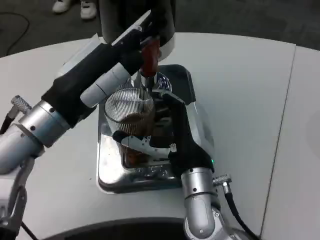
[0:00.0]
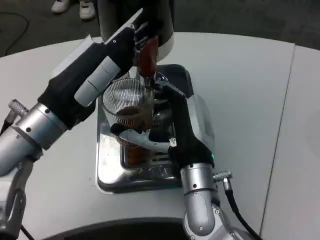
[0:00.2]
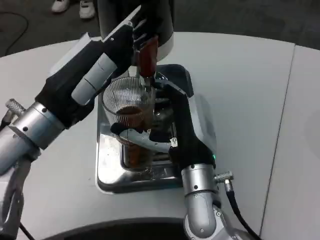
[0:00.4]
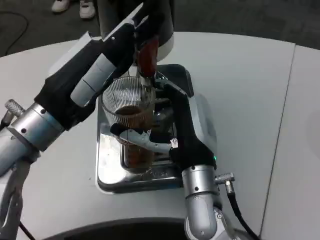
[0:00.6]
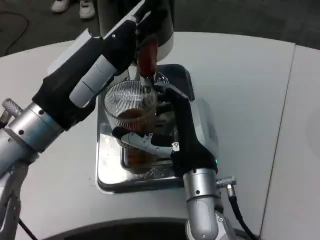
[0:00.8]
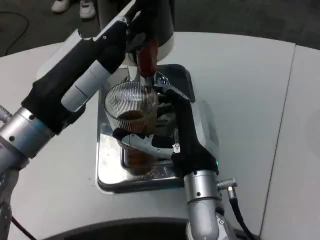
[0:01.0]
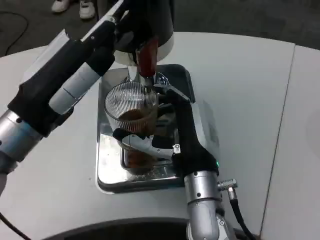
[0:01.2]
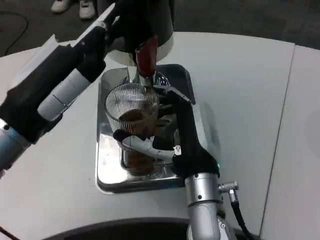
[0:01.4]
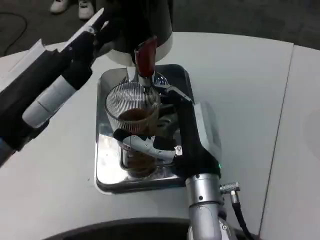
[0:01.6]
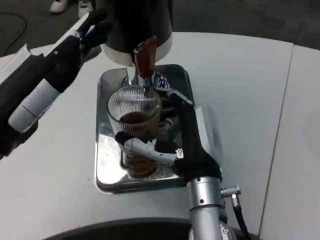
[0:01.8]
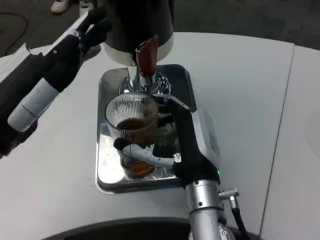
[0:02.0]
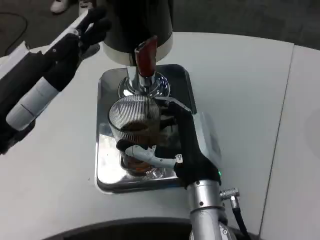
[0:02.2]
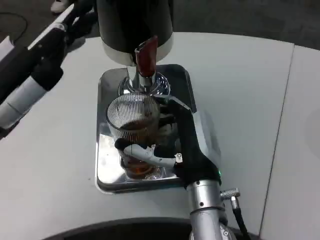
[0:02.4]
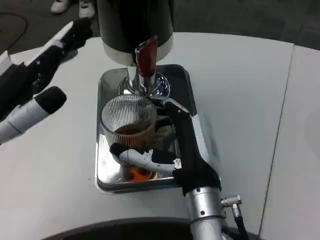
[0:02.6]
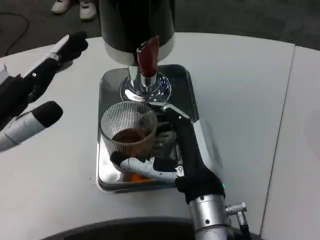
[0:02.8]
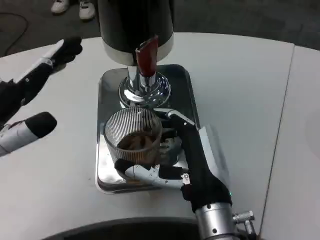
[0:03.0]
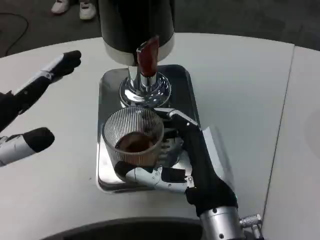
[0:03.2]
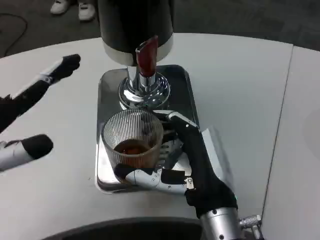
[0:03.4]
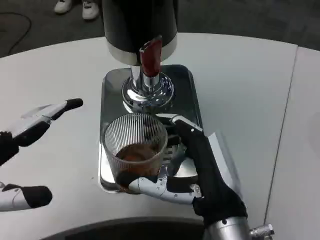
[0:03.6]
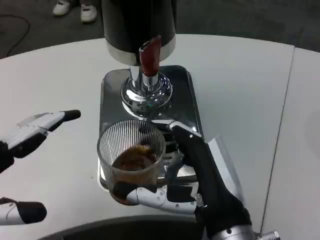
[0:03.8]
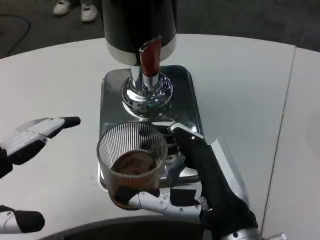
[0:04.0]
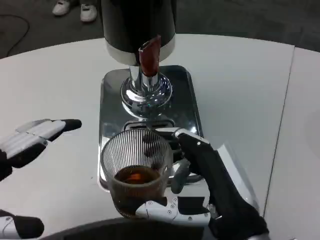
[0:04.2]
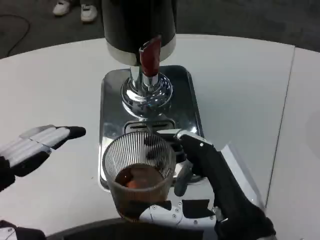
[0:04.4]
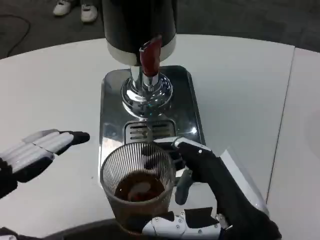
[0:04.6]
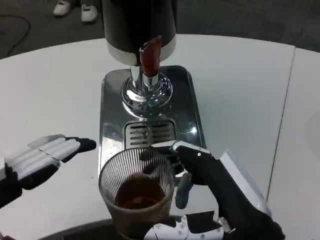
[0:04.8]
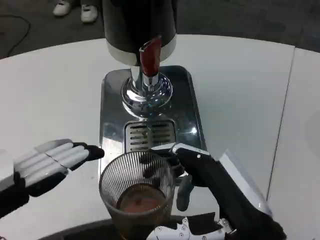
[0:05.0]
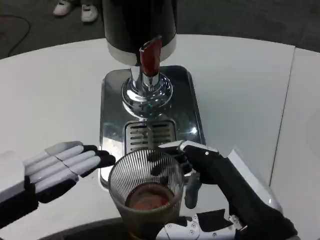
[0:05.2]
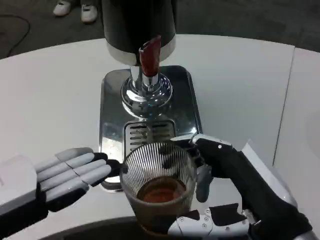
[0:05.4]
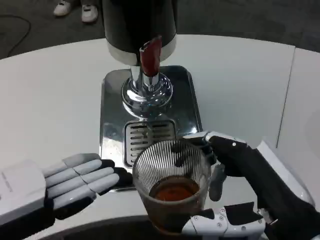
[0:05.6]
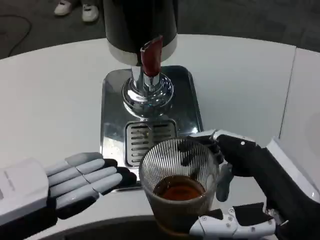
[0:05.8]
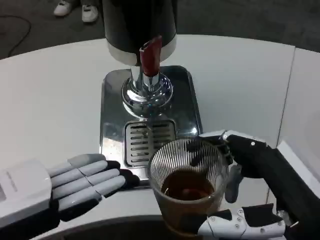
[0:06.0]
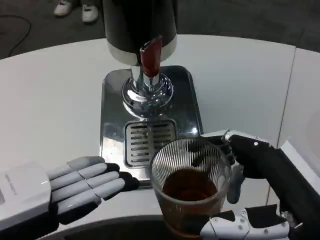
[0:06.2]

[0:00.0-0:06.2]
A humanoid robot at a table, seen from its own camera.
Task of the whole recording: Grasp the cup under the faucet to collect the drink, then remove the cup.
0:00.0 to 0:01.6: The left hand goes some 5 cm backward.
0:01.6 to 0:03.2: The left hand moves to the left, some 5 cm; the right hand travels backward by approximately 5 cm.
0:03.2 to 0:04.6: The left hand moves roughly 5 cm; the right hand travels backward and to the right by about 10 cm.
0:04.6 to 0:06.2: The right hand shifts roughly 5 cm to the right.

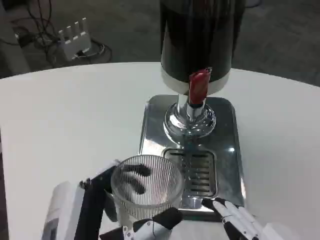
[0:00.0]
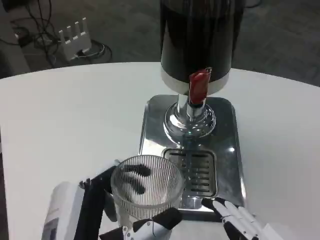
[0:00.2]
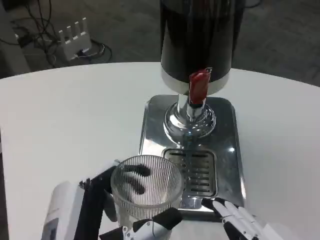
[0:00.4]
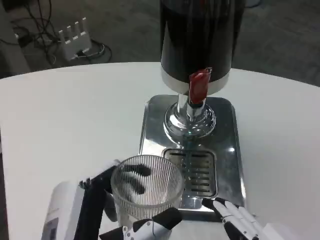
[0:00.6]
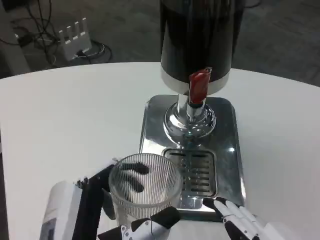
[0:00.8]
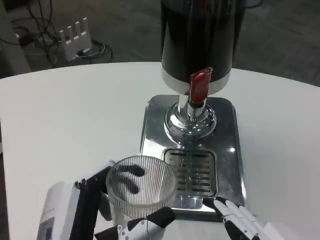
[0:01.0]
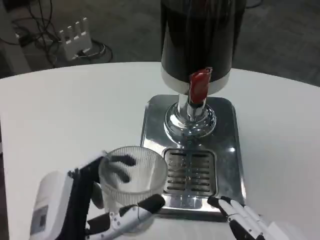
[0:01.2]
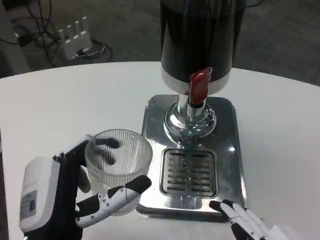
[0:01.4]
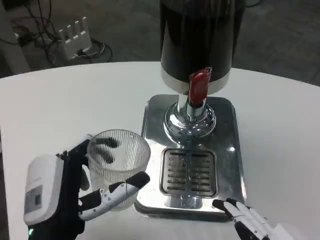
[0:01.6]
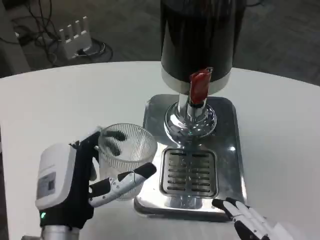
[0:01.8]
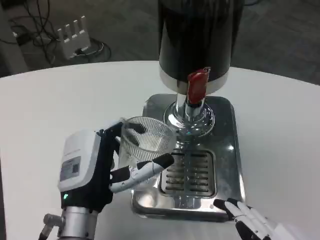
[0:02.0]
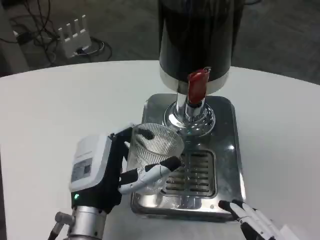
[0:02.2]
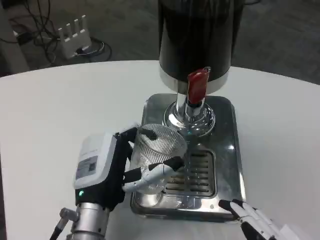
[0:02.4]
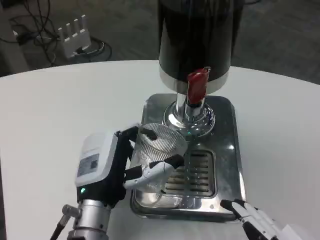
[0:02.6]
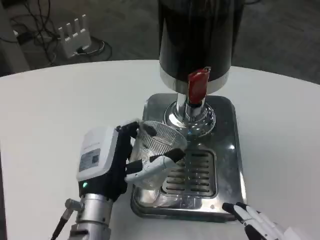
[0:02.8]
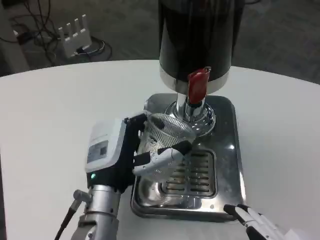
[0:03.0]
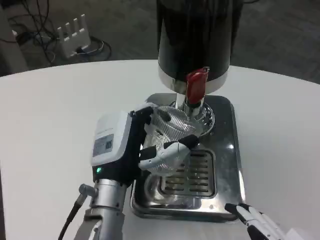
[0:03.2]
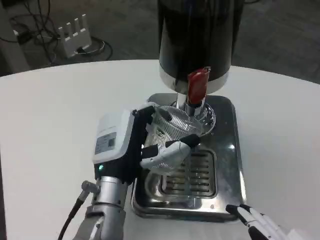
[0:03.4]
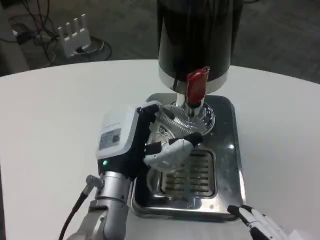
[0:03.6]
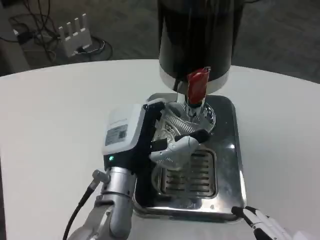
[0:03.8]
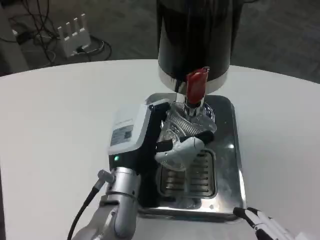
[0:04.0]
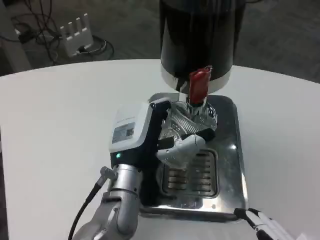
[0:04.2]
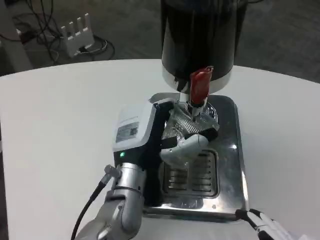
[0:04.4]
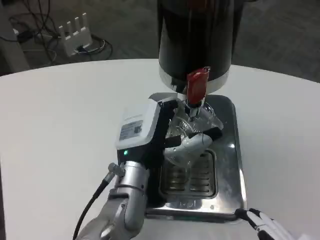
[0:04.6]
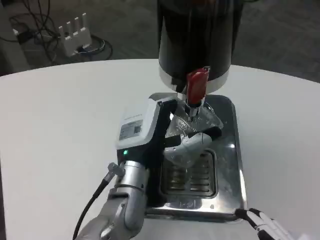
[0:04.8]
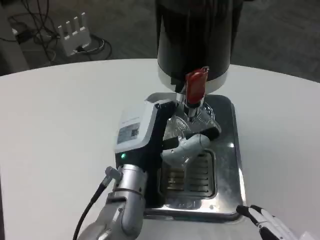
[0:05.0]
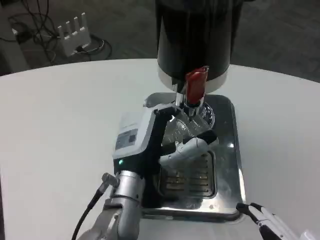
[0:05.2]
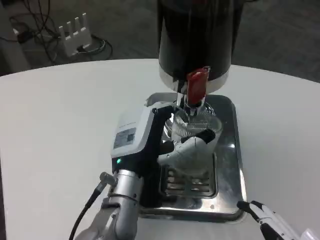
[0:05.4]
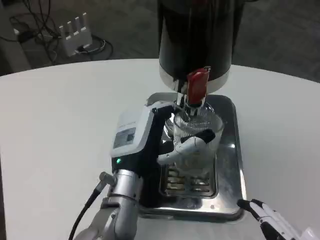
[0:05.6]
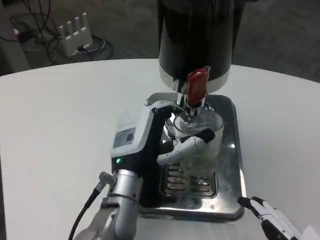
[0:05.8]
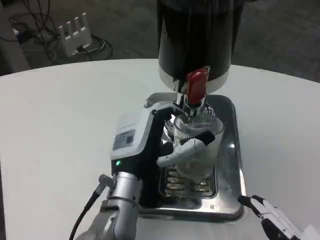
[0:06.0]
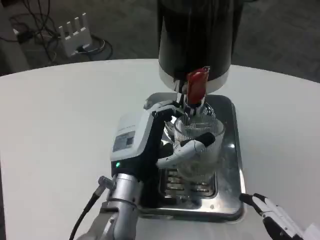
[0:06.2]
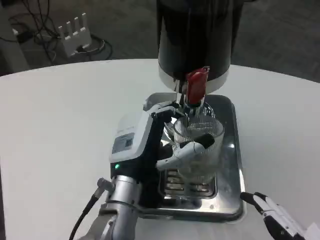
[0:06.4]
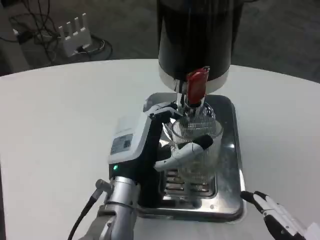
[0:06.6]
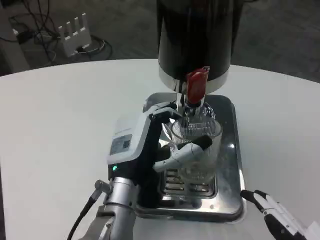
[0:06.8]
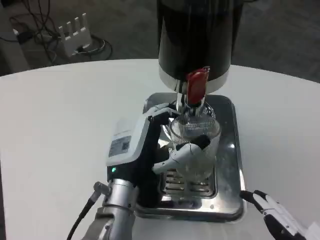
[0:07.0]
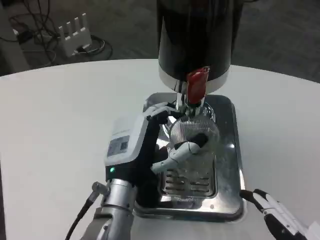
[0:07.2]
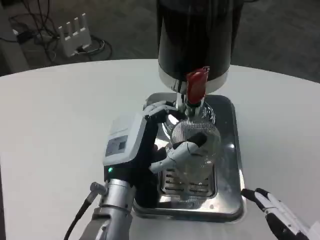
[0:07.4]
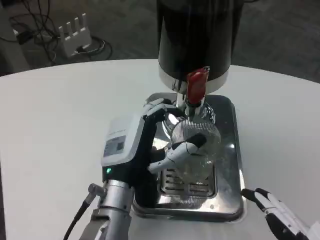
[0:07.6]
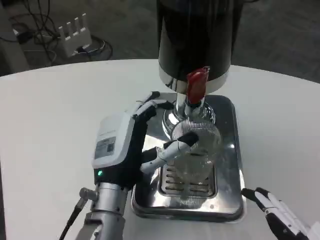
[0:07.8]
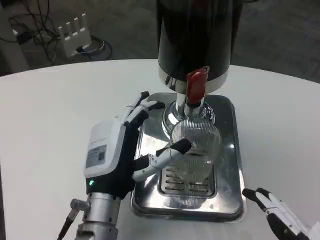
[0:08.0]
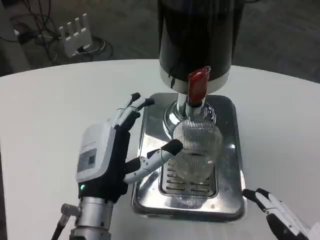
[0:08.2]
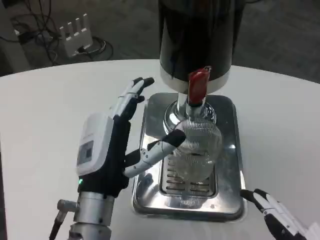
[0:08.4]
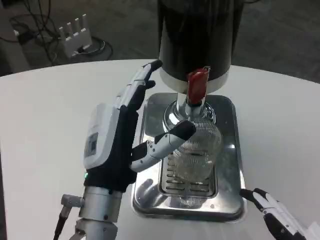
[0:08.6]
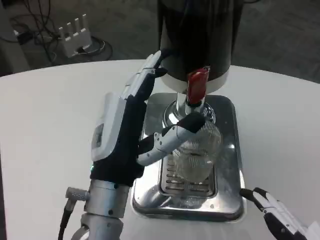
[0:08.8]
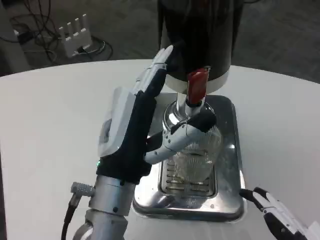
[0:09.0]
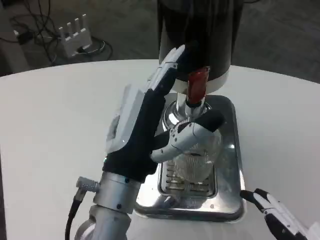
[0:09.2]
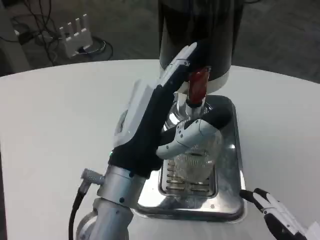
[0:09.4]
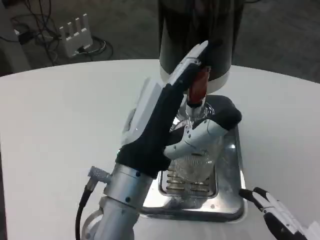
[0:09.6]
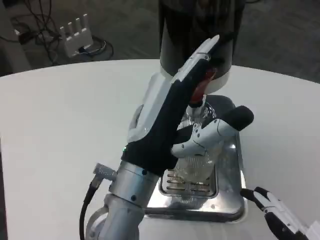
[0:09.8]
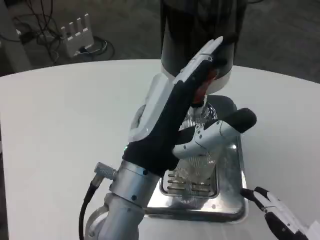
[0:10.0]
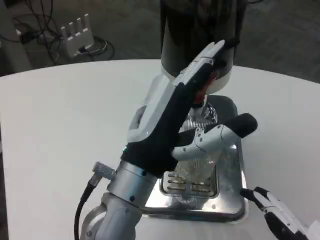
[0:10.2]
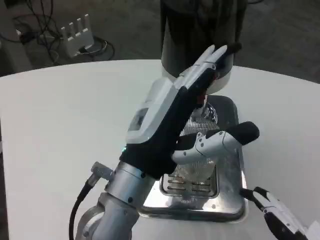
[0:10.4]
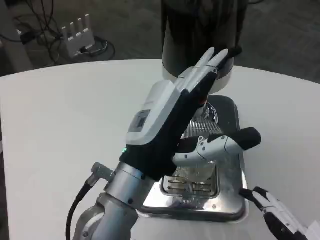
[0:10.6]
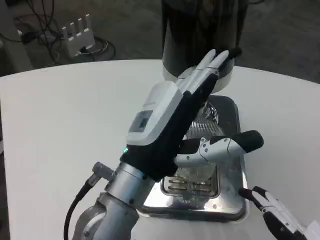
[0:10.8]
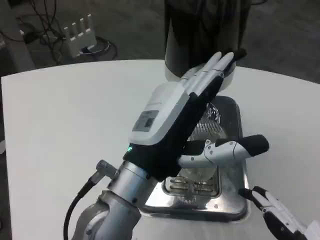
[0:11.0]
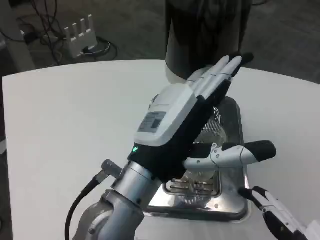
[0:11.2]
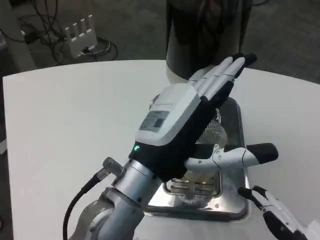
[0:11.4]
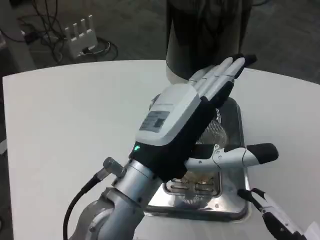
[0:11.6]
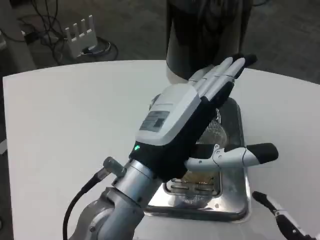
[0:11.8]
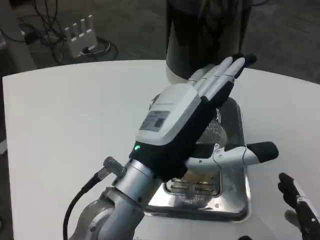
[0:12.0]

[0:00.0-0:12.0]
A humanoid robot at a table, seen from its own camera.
Task of the whole recording: Grasp the cup under the faucet to collect the drink, then remove the cup.
0:00.0 to 0:01.6: The left hand goes roughly 5 cm forward.
0:01.6 to 0:03.0: The left hand shifts about 10 cm forward.
0:03.0 to 0:07.6: There are only small adjustments of the hands.
0:07.6 to 0:09.0: The left hand moves upward and backward, some 10 cm.
0:10.4 to 0:12.0: The right hand moves downward, approximately 5 cm.

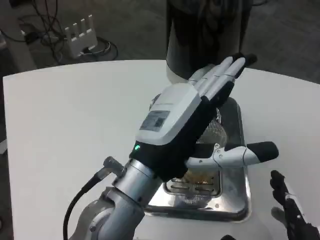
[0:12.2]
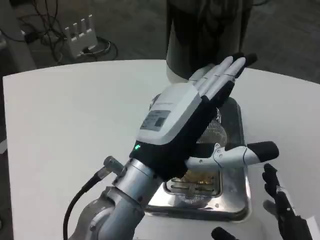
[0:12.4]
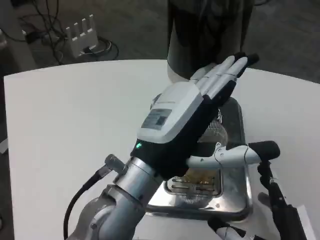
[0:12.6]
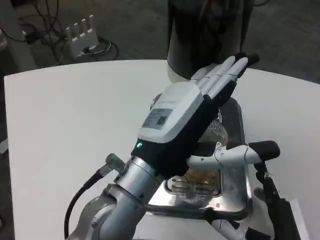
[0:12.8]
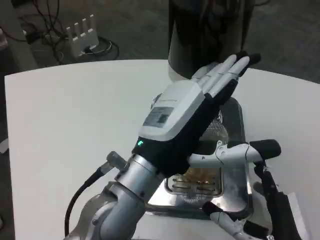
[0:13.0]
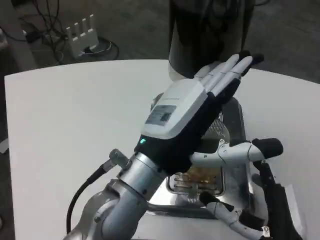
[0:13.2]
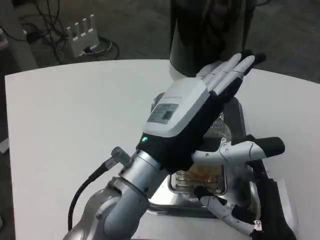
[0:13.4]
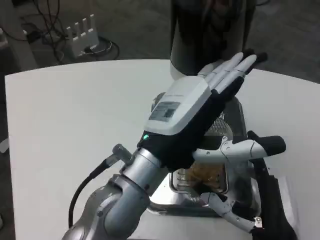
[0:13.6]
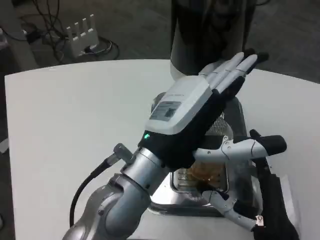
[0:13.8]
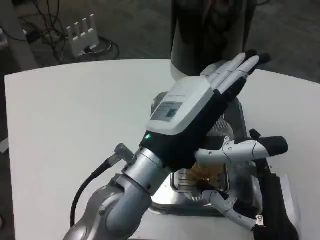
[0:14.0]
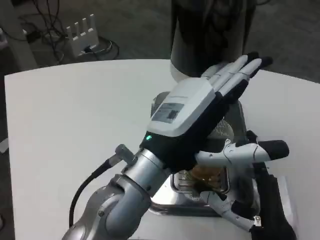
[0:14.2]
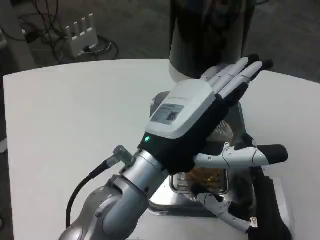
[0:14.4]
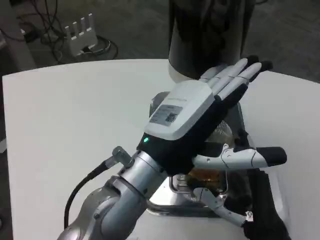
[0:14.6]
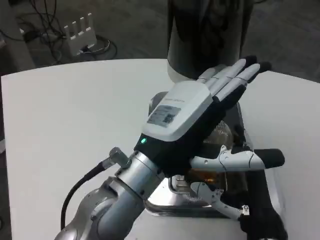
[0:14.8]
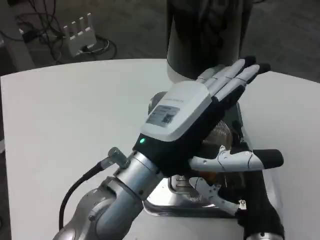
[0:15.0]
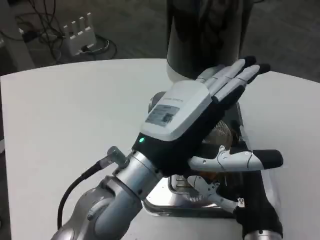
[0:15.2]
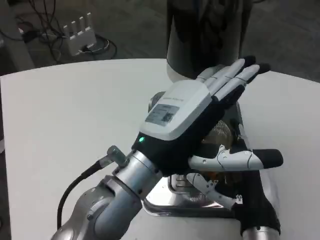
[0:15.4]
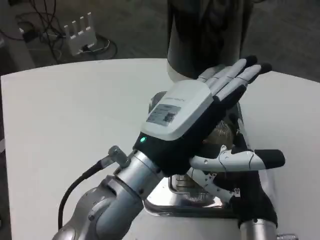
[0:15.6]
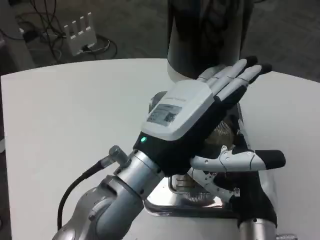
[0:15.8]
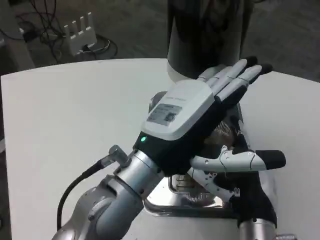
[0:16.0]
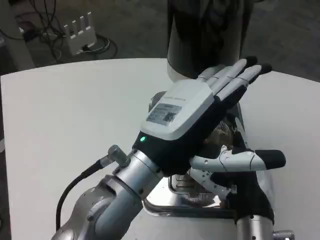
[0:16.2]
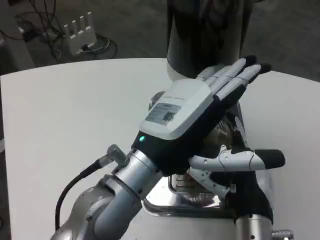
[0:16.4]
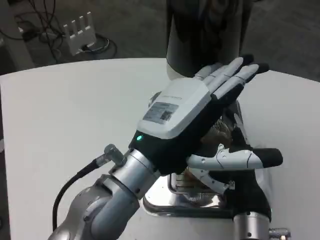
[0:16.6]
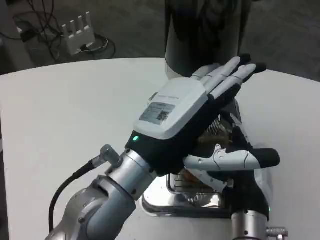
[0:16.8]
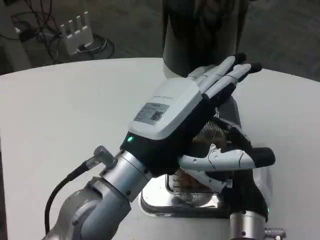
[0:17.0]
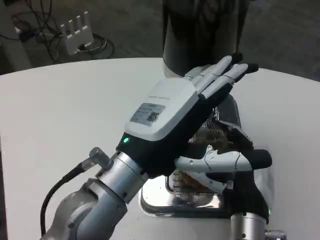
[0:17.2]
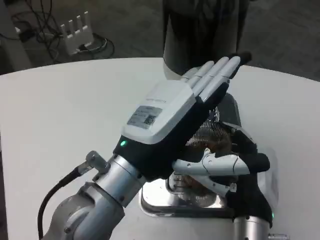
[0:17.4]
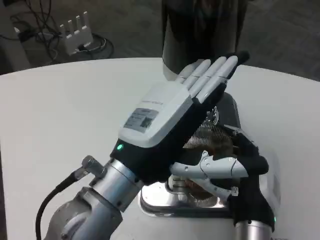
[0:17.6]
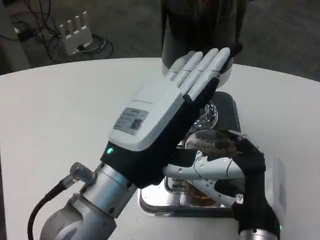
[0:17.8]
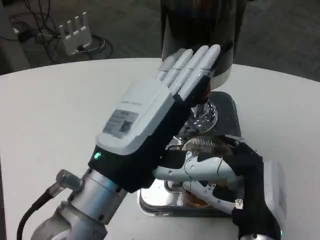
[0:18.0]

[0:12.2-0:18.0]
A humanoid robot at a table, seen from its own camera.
Task of the whole recording: Grasp the cup under the faucet to collect the drink, then remove the cup.
0:12.2 to 0:13.6: The right hand heads forward, covering some 10 cm.
0:15.0 to 0:16.6: The hands stay close to where they were, moving slightly.
